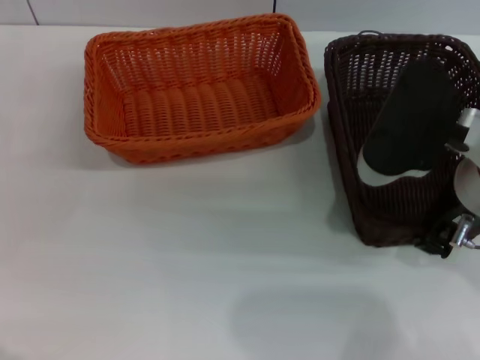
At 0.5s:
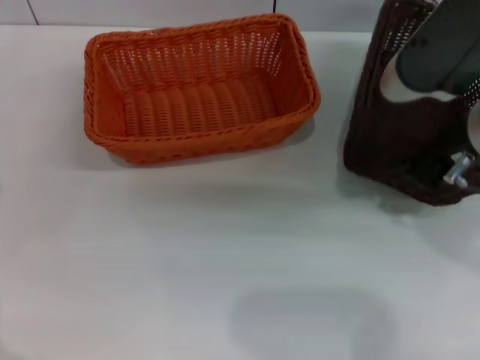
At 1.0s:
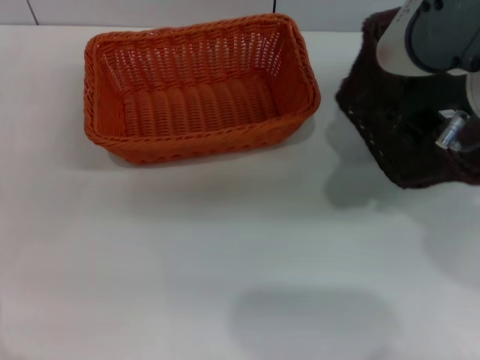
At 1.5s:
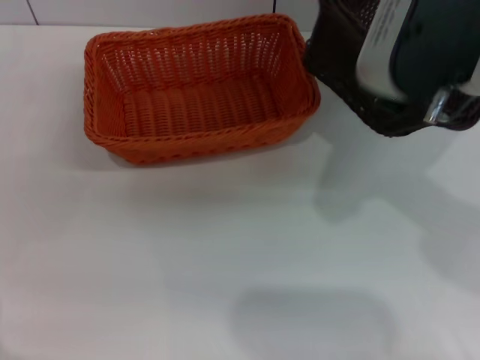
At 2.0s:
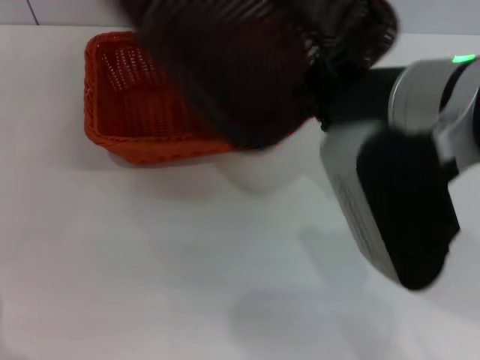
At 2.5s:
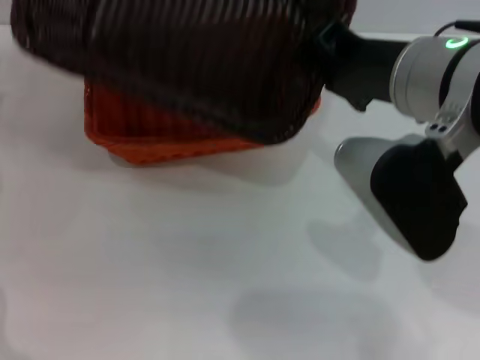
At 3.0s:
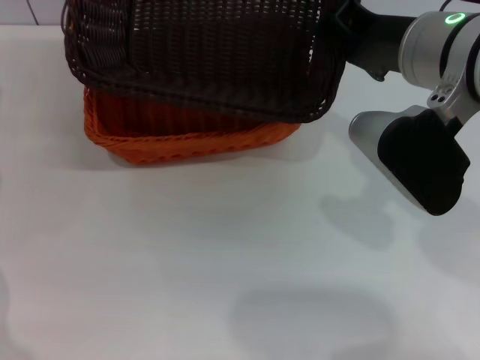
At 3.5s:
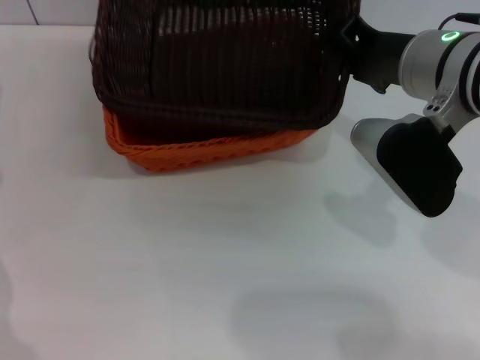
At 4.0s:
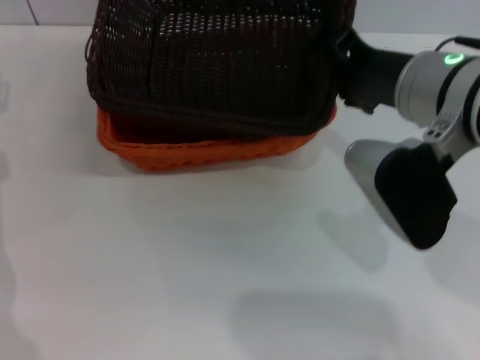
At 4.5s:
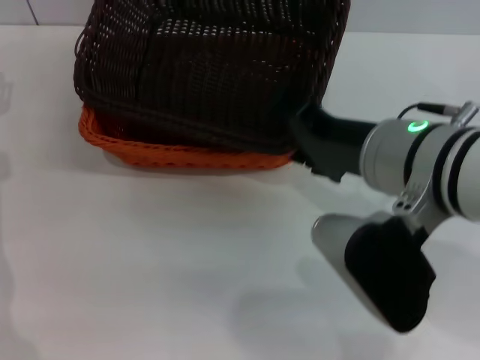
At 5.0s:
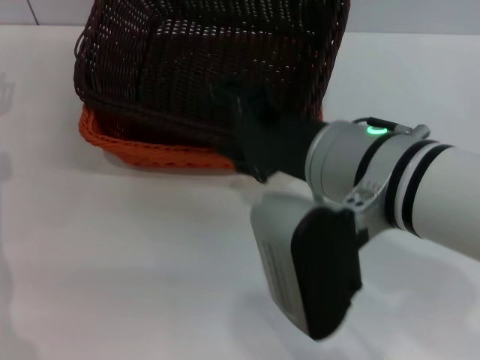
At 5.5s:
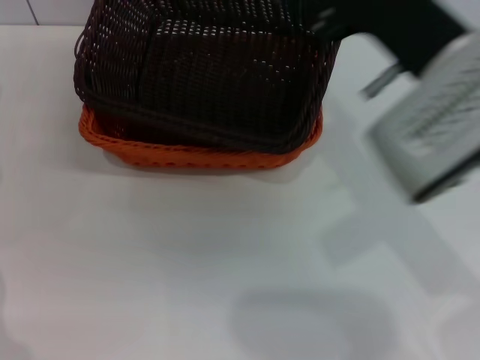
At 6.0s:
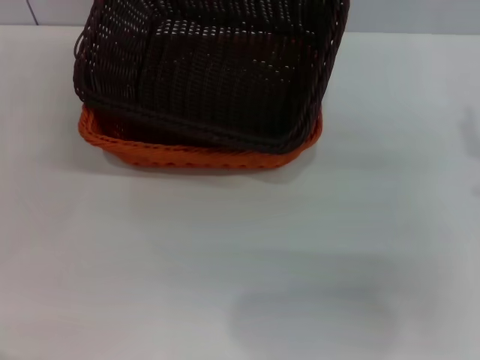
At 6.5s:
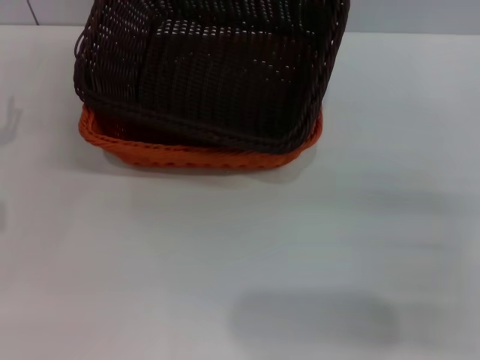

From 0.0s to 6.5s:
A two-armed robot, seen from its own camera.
Step, from 0.0s to 4.5s: Place the dark basket on the light basket with the right gripper.
From 0.0s to 2.0s: The right gripper heads upward, covering roughly 5 cm, and closes up.
From 2.0s to 4.5s: The right gripper shifts approximately 5 cm downward, reaches about 5 cm forward, then returns, and opens.
From 4.5s to 6.5s: The right gripper travels to the right and downward by roughly 20 cm; the left gripper moves backward, some 5 cm.
